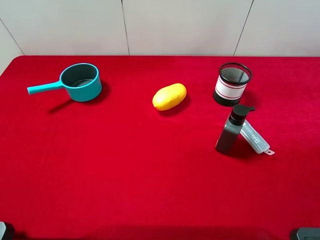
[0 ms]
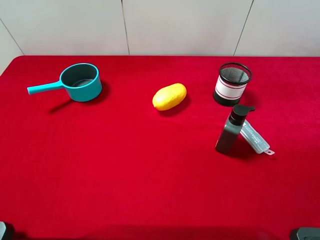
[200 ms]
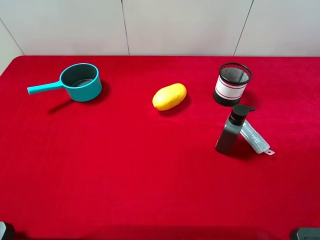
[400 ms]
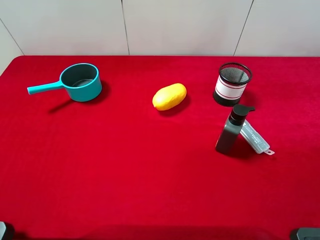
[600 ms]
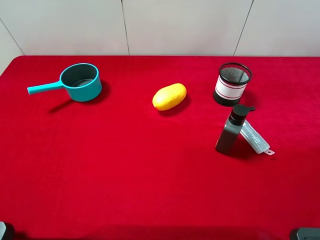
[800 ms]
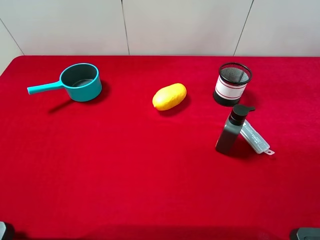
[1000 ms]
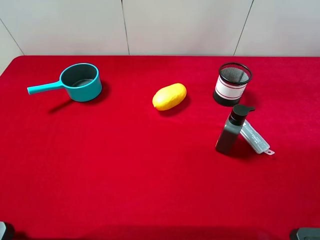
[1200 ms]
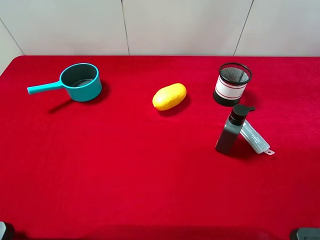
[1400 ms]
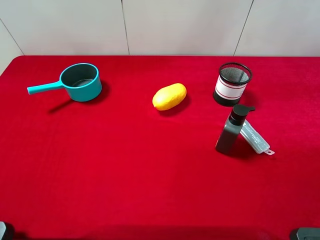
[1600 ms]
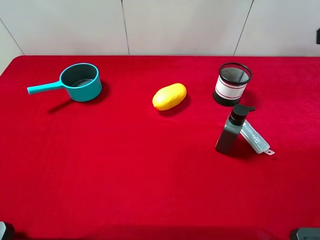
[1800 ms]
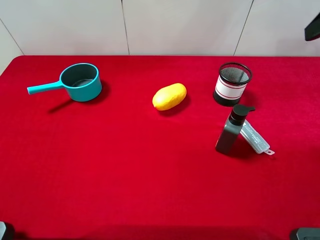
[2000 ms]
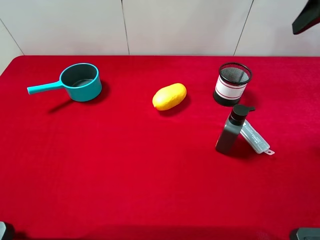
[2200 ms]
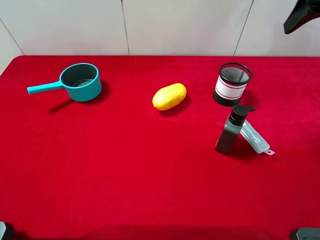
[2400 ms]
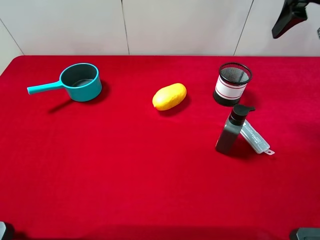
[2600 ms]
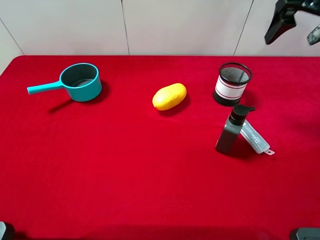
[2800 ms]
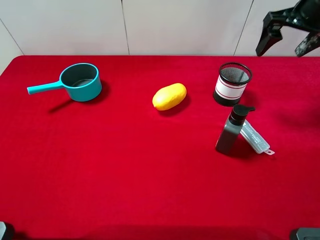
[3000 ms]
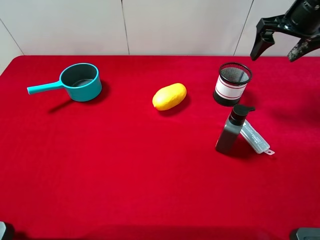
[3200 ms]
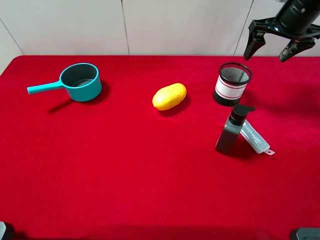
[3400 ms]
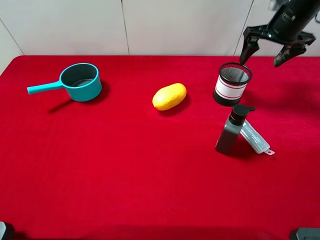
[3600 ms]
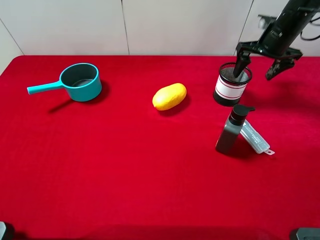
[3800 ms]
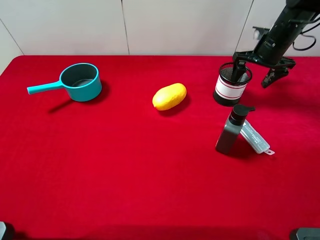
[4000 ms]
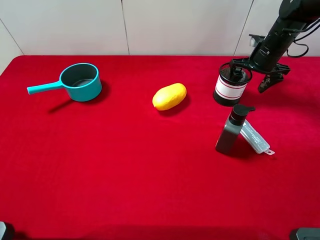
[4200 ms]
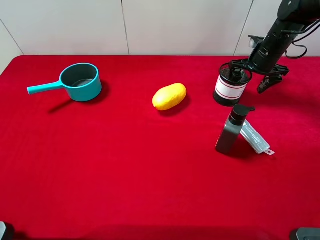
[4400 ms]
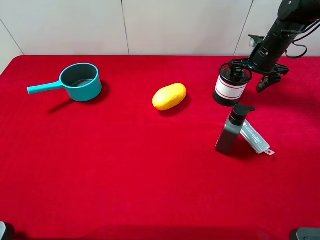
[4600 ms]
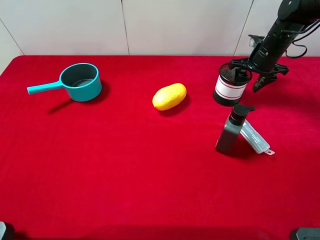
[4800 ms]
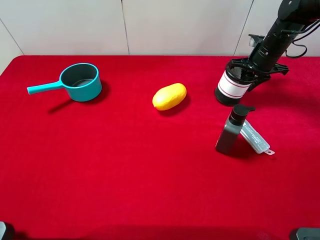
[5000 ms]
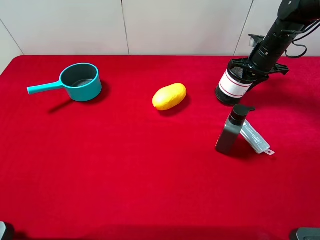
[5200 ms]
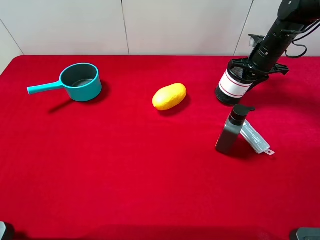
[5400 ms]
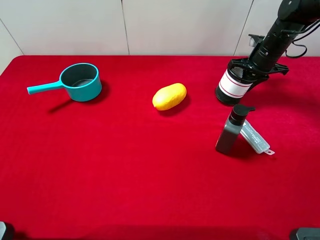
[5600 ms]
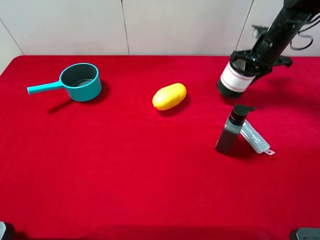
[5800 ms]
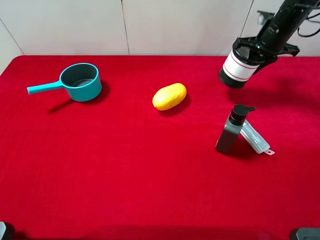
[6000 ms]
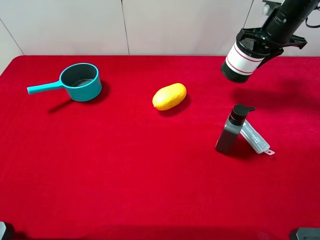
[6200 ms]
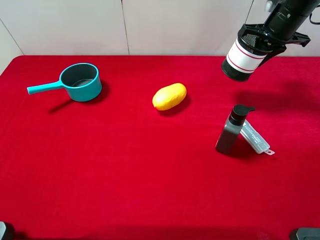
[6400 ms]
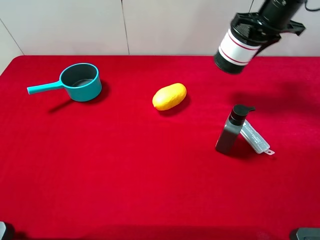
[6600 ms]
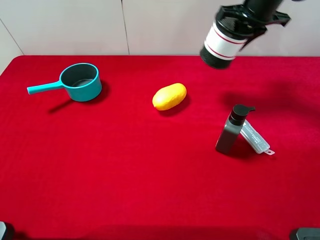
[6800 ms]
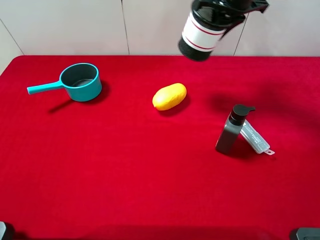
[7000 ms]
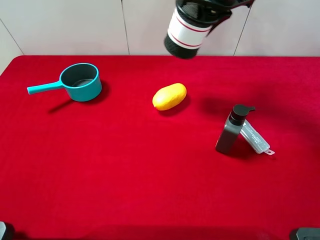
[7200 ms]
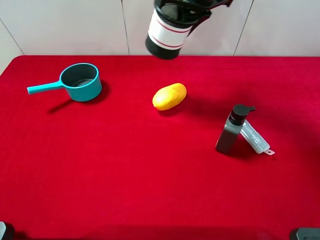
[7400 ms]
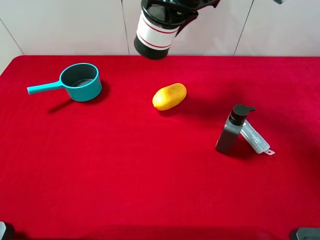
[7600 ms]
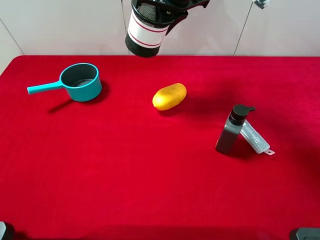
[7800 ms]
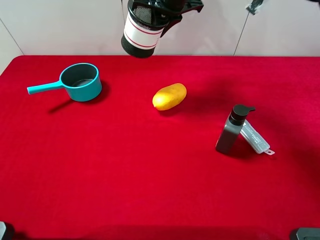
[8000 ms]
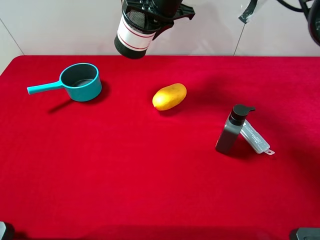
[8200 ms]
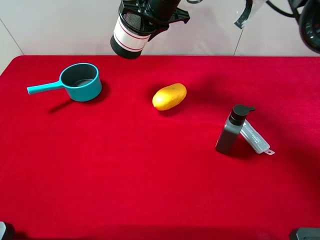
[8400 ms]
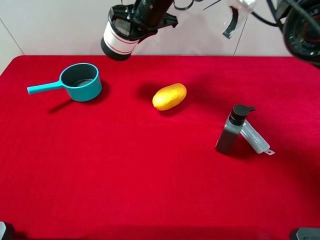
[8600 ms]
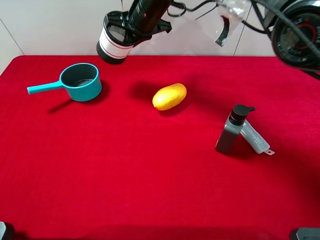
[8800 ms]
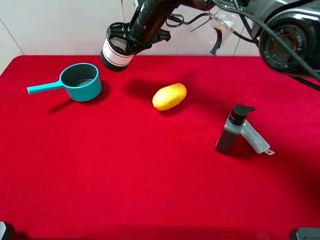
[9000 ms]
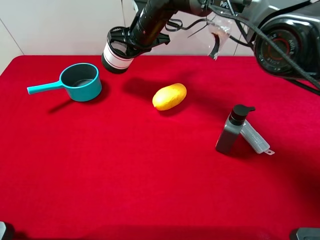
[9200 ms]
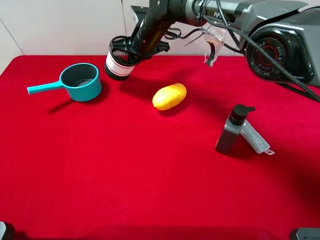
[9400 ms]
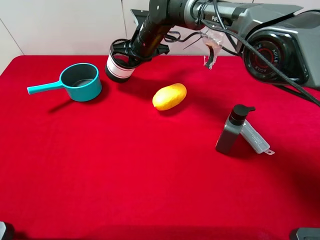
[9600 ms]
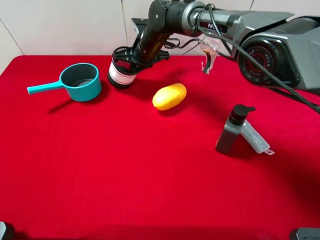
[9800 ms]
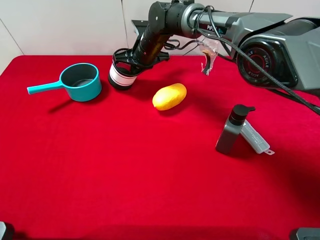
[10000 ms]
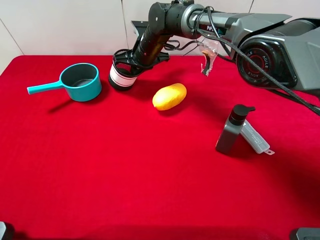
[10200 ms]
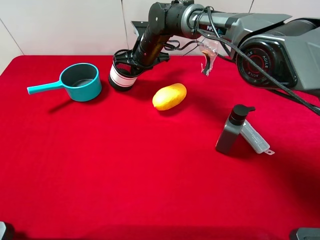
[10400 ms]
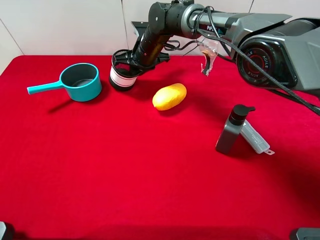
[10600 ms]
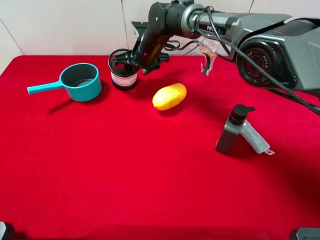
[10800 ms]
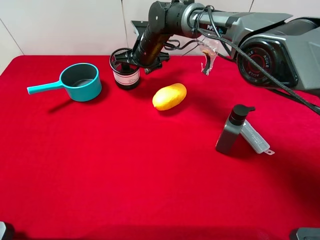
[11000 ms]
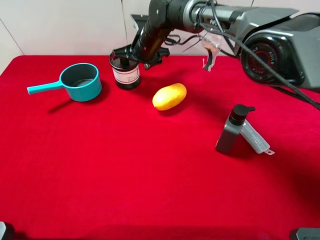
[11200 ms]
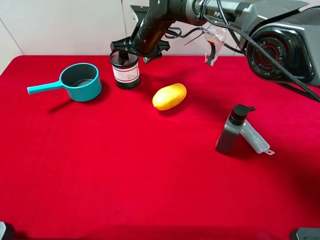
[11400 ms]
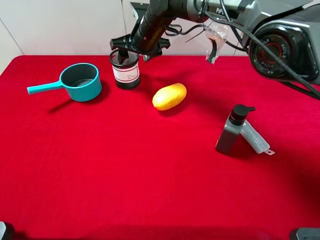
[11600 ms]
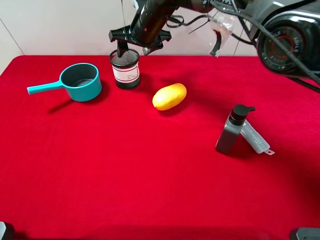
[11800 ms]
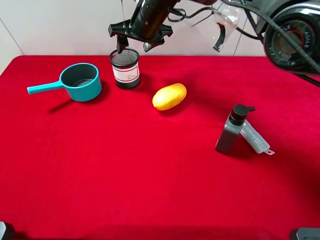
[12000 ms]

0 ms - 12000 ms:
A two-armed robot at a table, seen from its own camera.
Task of the whole recording: the gripper move the object.
Step, 0 ms - 5200 ms: Grasp the pen container with the right gripper.
1600 ms - 3000 ms: The right gripper moves forward and downward, roughly 25 cm.
3000 ms - 4400 ms: The right gripper shifts about 15 cm downward and forward.
4400 ms - 6000 ms: The right gripper heads upward, covering about 5 cm, and closes.
6000 ms - 7600 ms: The right gripper travels to the left and upward by about 25 cm.
7600 ms - 9000 ms: The right gripper shifts about 15 cm downward and to the left.
9000 ms - 10400 ms: The right gripper moves downward, roughly 5 cm.
10400 ms - 12000 ms: The right gripper moves upward, approximately 10 cm, and opens its fingers.

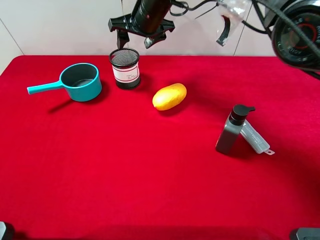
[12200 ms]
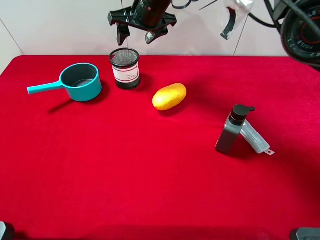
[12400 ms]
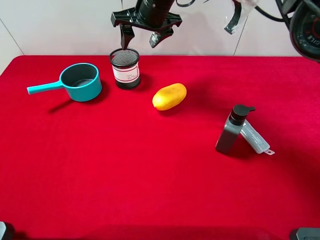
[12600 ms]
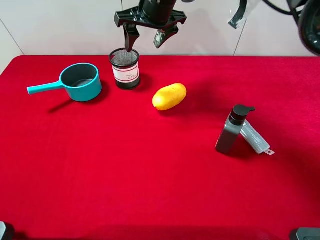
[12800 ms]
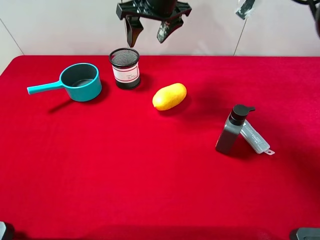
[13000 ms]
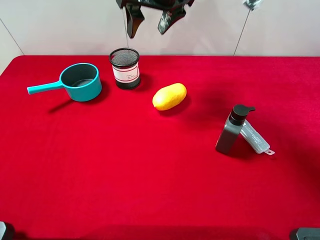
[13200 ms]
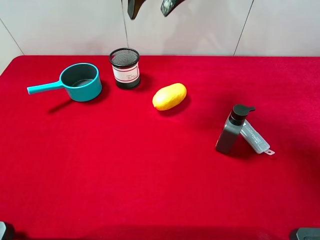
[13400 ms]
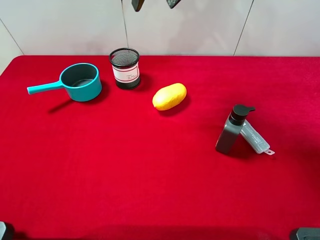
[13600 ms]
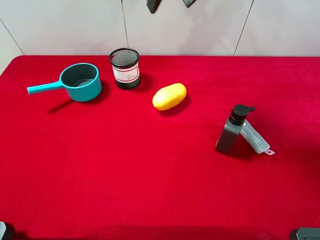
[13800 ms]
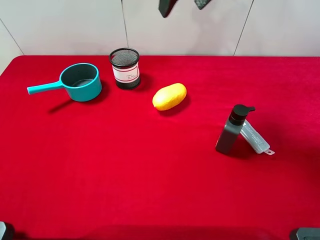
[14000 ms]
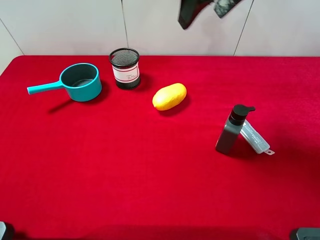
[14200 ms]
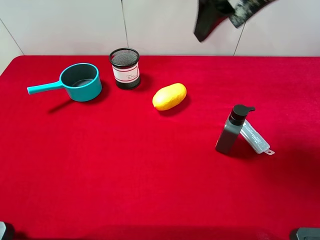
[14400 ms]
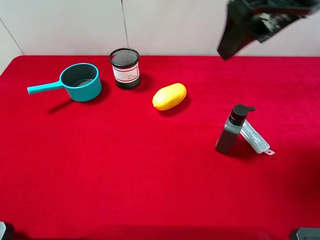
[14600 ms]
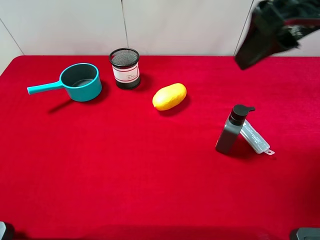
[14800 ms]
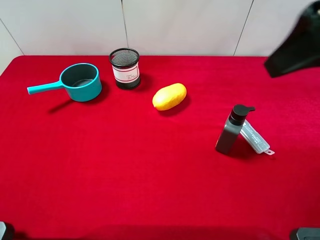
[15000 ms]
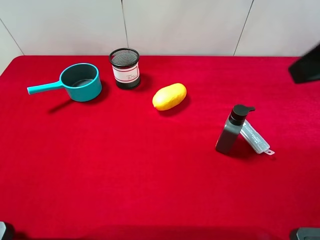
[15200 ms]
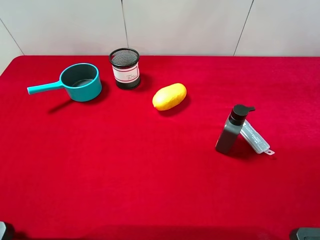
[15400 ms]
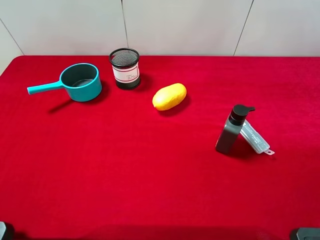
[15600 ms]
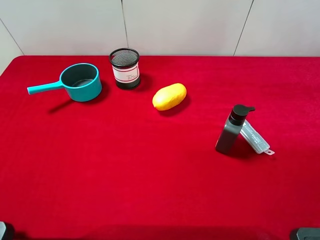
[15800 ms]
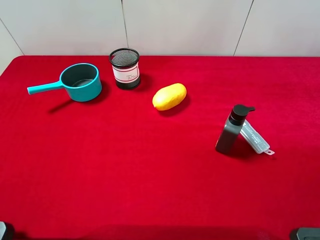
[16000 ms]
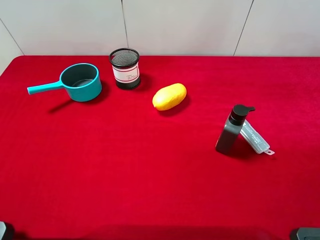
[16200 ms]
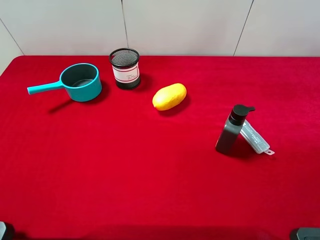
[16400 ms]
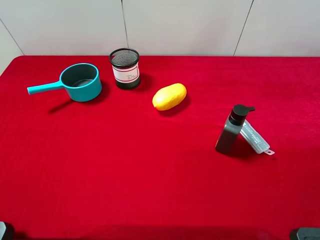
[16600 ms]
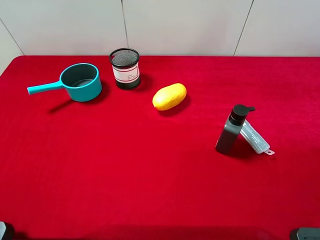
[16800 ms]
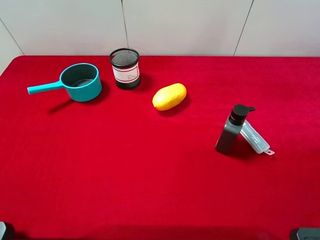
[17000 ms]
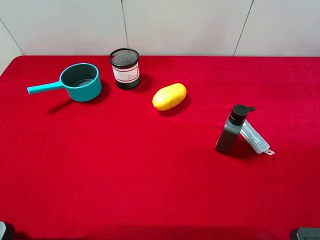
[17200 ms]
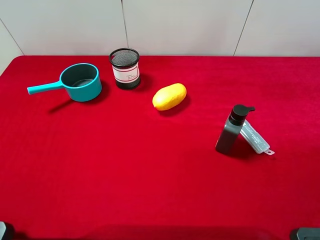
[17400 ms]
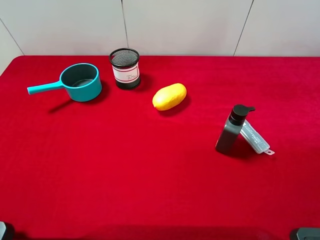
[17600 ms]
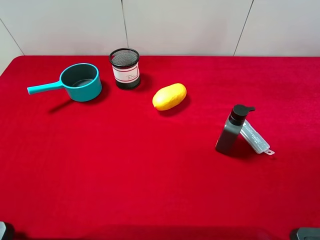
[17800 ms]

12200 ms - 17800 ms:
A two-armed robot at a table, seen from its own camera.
Task of the whole recording: the gripper move the object.
12200 ms - 13600 ms: The right gripper travels upward, backward and to the right by approximately 15 cm.
13600 ms - 15000 ms: The right gripper is displaced backward and to the right by approximately 25 cm.
15000 ms - 16400 ms: The right gripper moves backward, to the right and downward, some 20 cm.

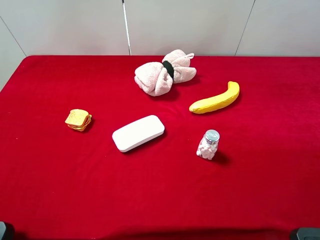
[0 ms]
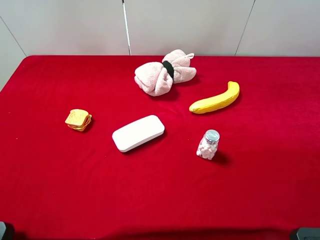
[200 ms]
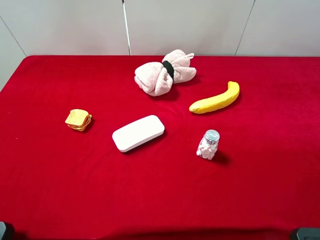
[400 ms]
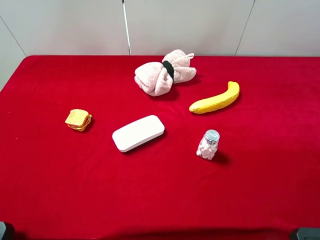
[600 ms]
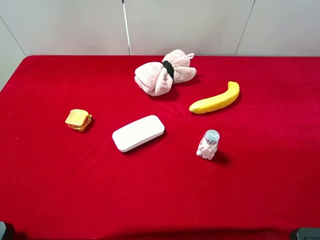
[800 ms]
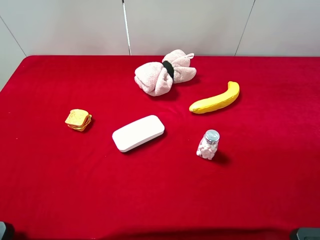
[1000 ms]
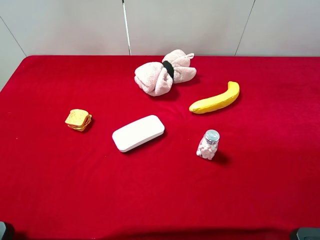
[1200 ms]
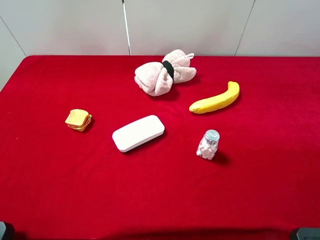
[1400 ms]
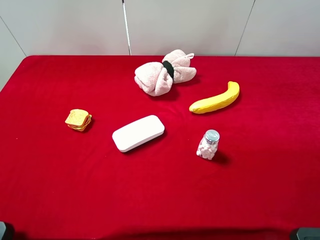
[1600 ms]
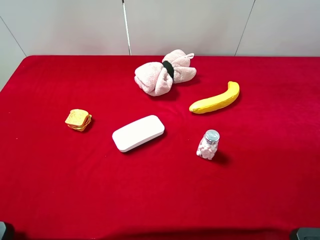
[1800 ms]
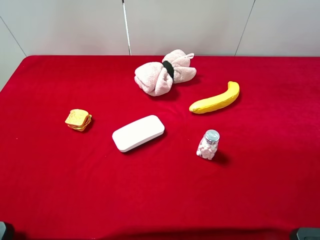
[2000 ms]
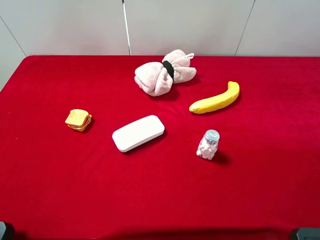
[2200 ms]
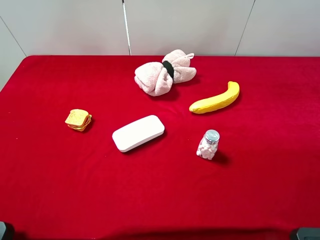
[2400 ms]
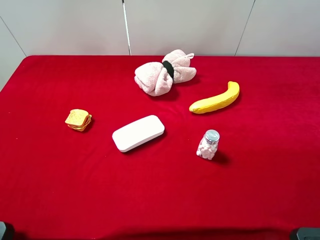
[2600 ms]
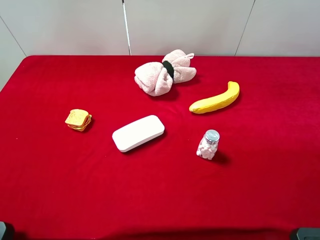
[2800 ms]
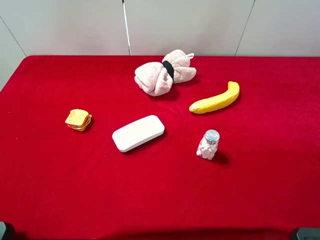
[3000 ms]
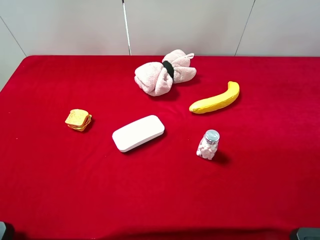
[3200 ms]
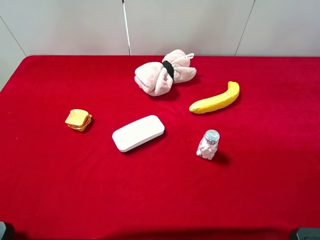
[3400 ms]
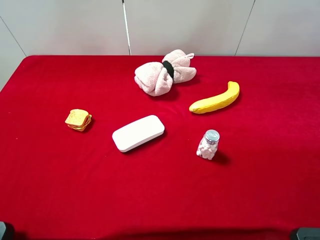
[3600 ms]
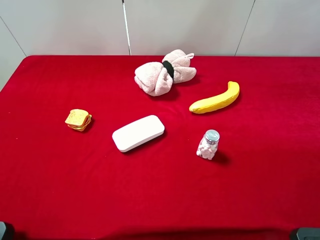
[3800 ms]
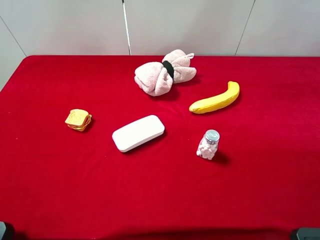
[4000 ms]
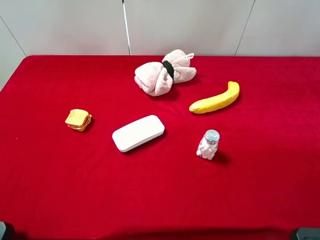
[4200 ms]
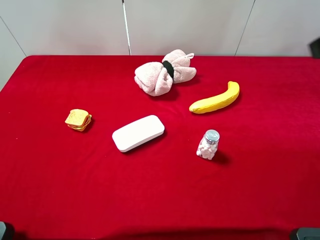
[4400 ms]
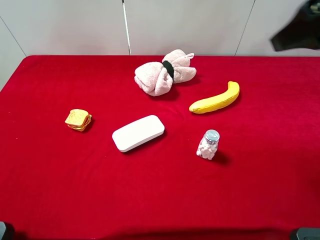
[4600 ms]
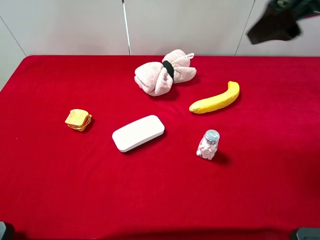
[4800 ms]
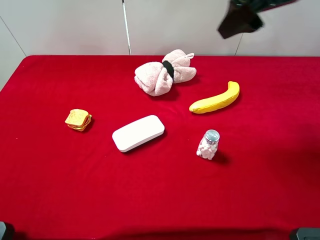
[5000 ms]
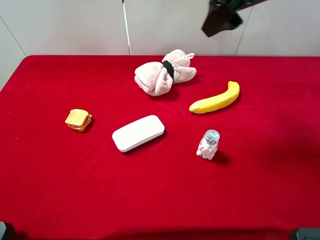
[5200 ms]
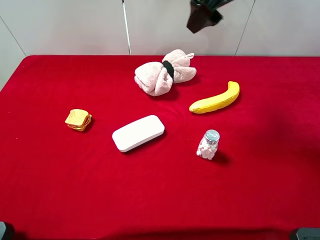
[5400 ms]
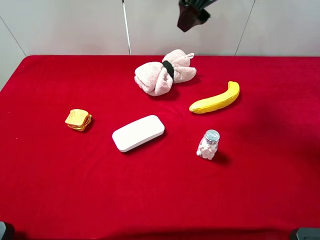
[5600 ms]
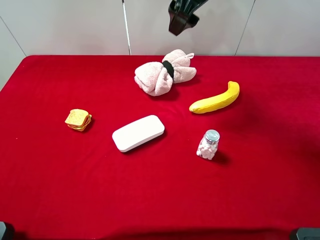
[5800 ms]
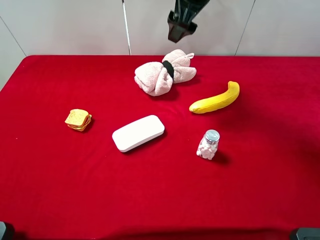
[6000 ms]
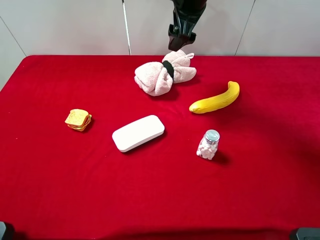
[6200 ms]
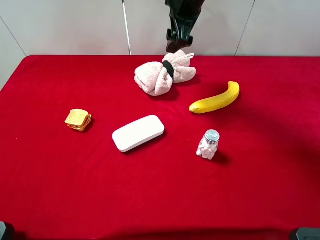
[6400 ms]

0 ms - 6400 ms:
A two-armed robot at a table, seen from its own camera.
Task of the whole recording: the gripper move the object.
0 ms - 1600 ms: Both grippers stay about where they are.
3200 ms - 4800 ms: The right gripper is displaced forward and to the left by roughly 25 cm.
4800 ms - 6400 ms: The right gripper goes about 25 cm forward, to the left and downward.
